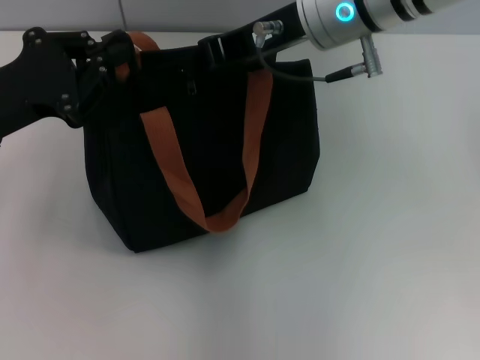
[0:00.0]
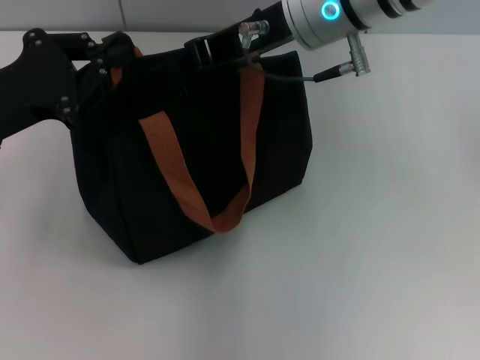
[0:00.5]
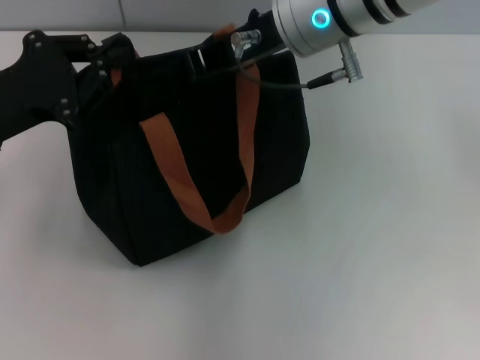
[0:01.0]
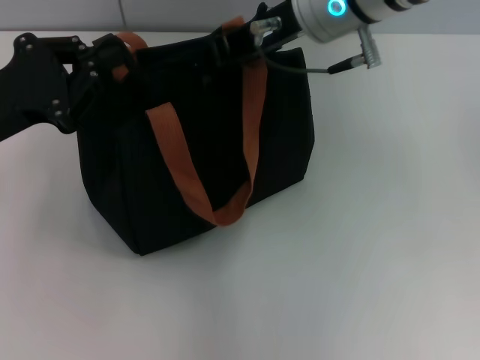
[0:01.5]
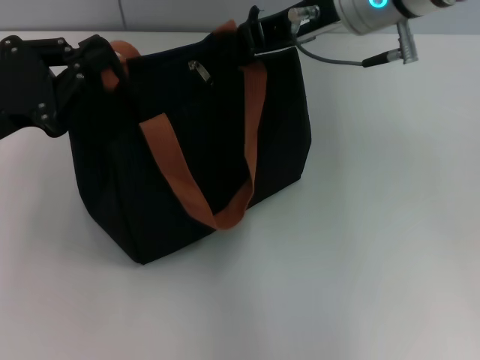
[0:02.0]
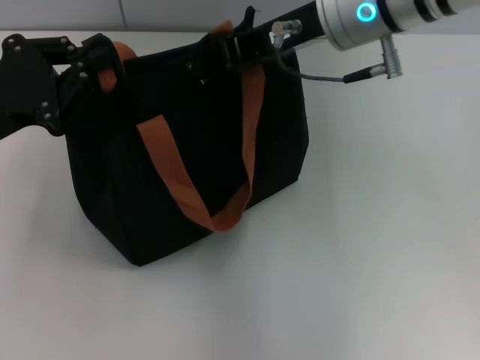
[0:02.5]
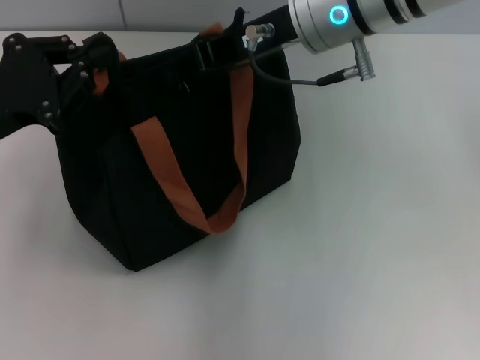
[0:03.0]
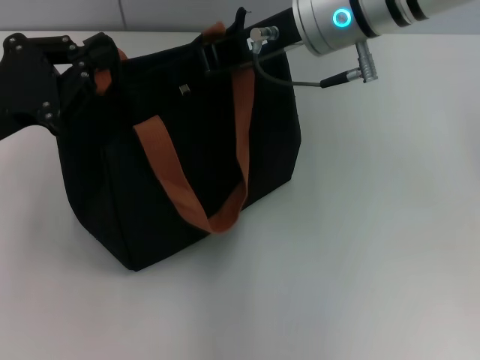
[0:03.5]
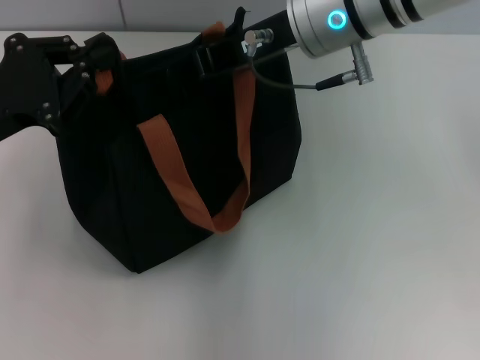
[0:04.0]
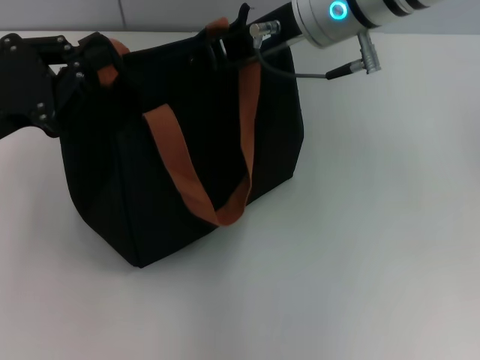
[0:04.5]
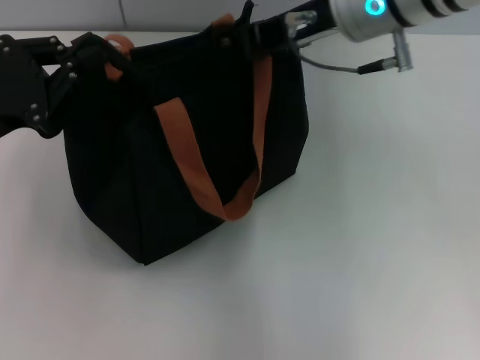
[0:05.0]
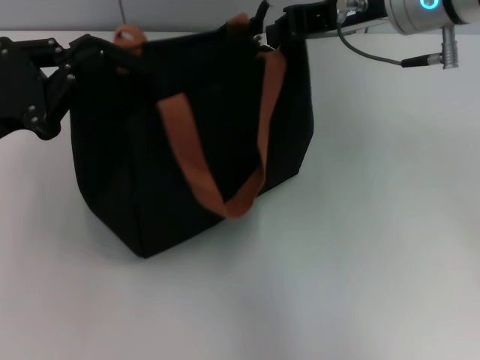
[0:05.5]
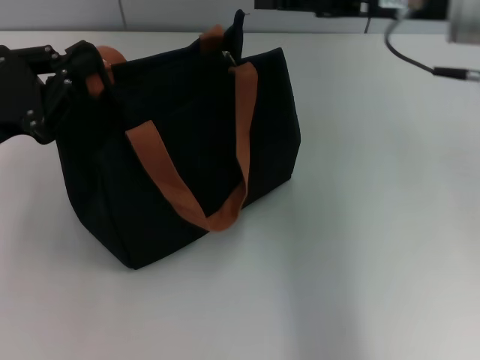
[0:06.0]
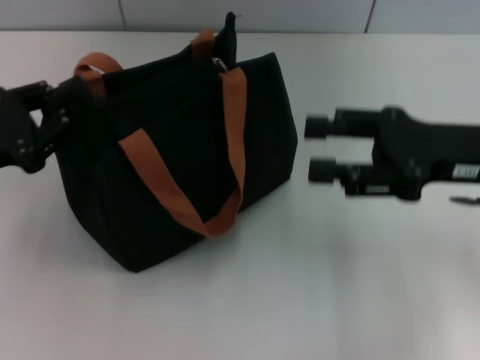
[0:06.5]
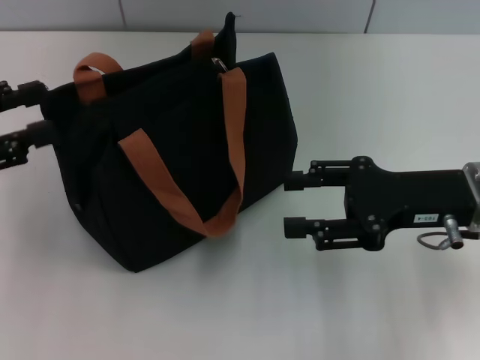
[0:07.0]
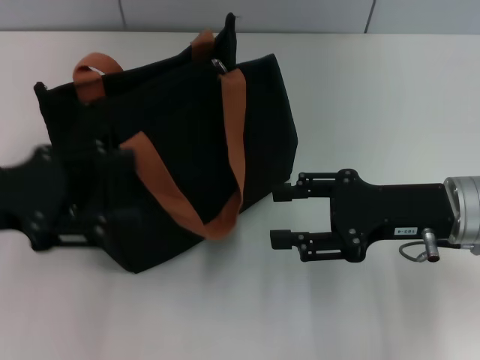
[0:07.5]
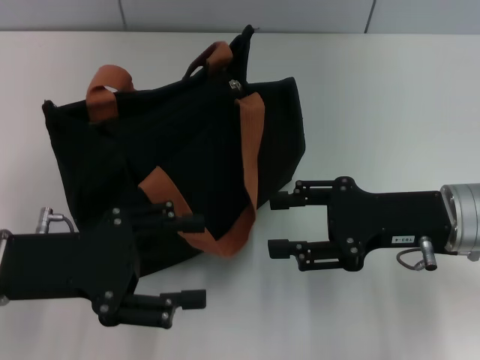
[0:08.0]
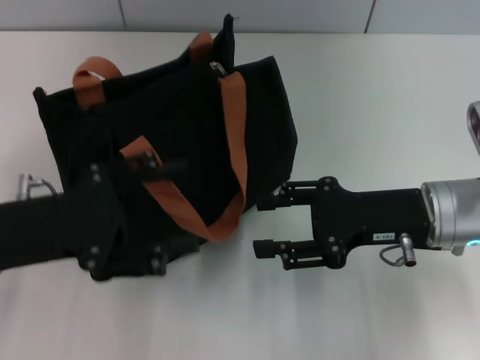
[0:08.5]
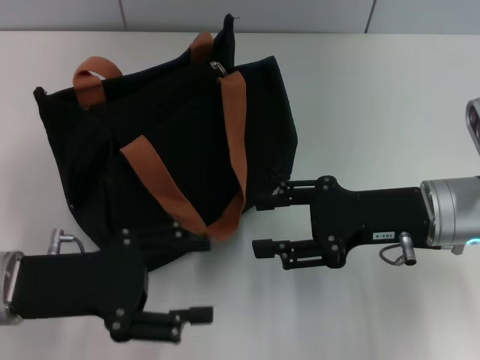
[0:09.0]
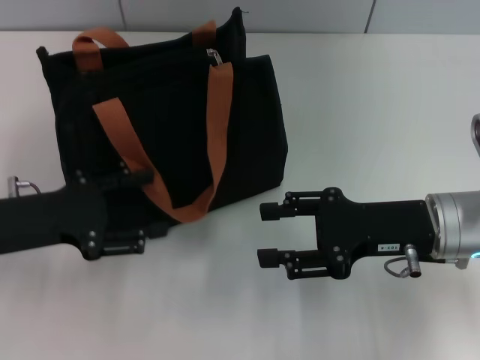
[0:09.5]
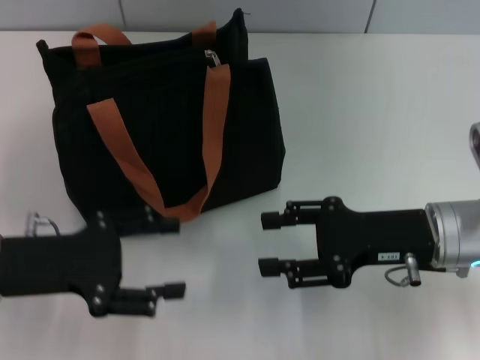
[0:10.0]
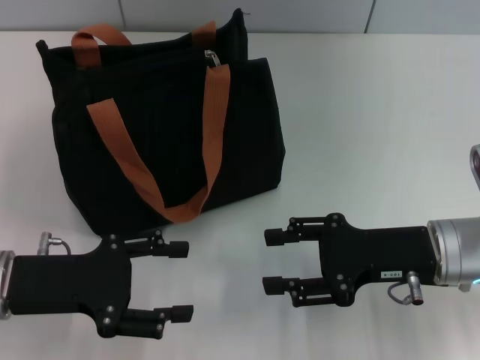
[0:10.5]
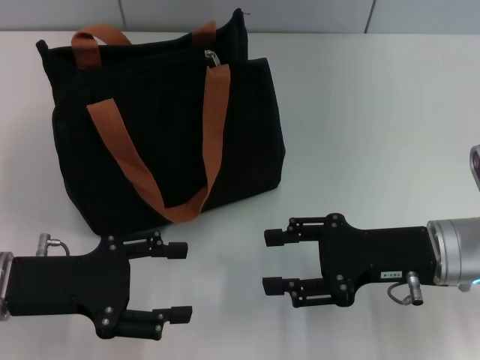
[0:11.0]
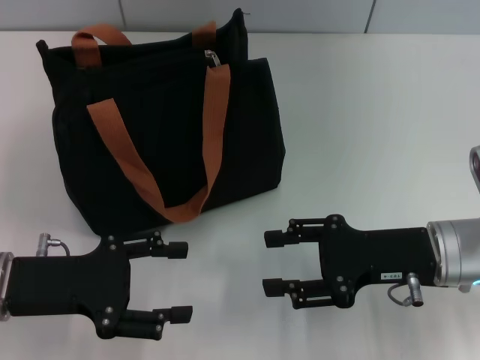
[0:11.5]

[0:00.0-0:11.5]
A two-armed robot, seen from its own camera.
Step, 0:00.0 to 0:05.5: Pull up the zipper with your right hand.
Step, 0:06.0 to 0:07.0: Grab the zipper with your left hand.
0:00.0 to 0:04.0: The grippers stay close to where they were, moving slightly.
0:04.0 to 0:06.0: The right gripper moves to the right, some 10 cm.
0:06.0 to 0:07.5: The left gripper opens; the right gripper travels downward and backward by approximately 15 cm, and opens its fingers.
0:07.5 to 0:09.5: The left gripper moves downward, about 5 cm.

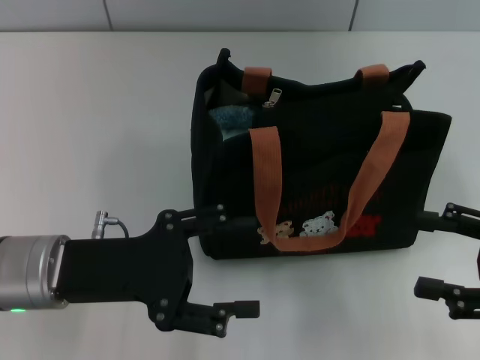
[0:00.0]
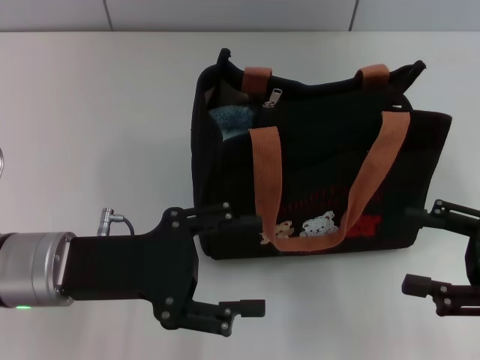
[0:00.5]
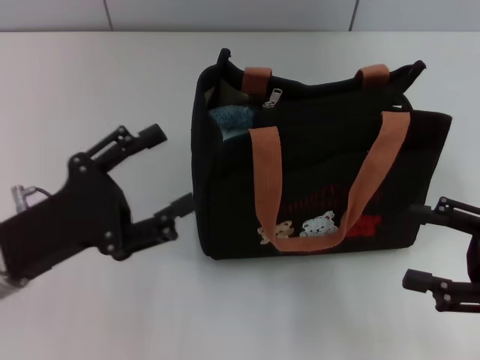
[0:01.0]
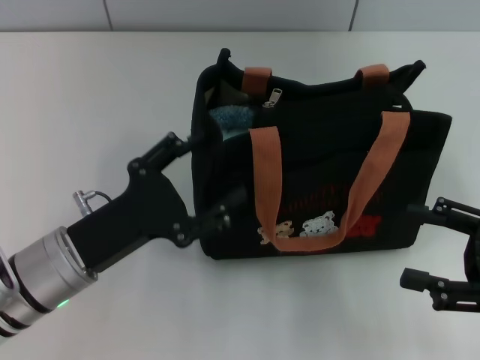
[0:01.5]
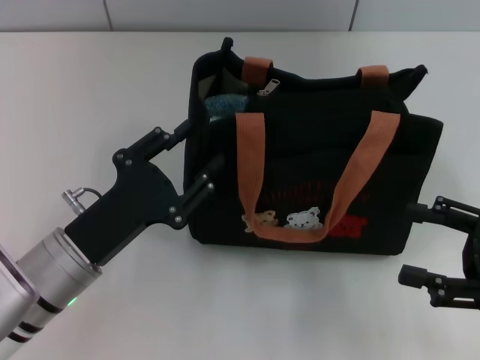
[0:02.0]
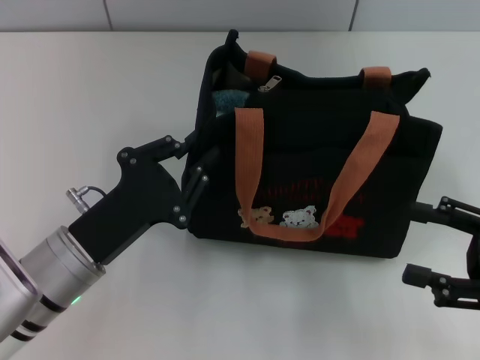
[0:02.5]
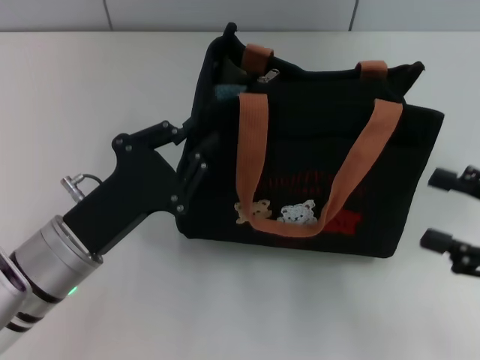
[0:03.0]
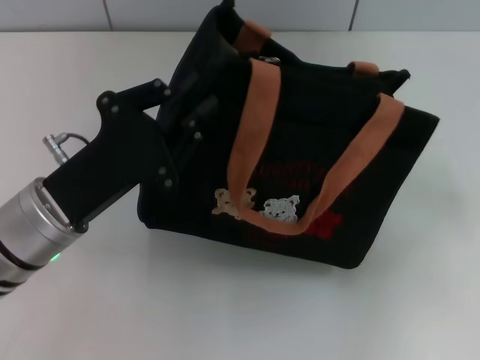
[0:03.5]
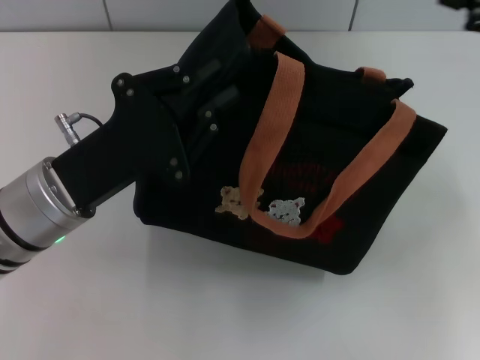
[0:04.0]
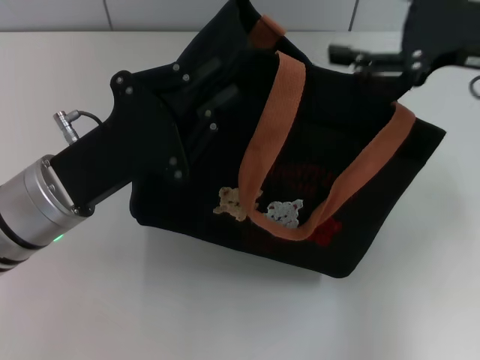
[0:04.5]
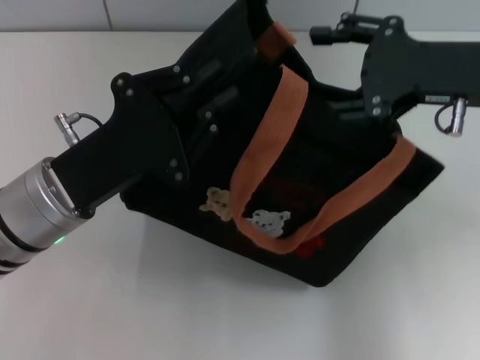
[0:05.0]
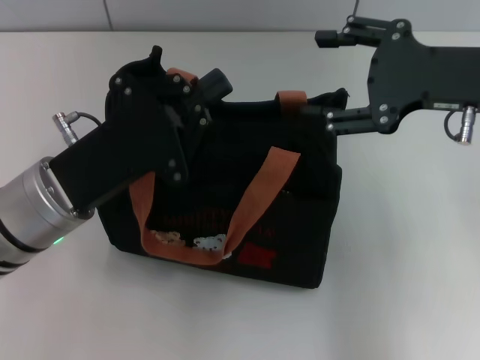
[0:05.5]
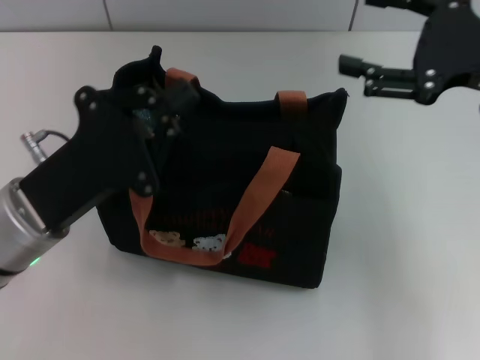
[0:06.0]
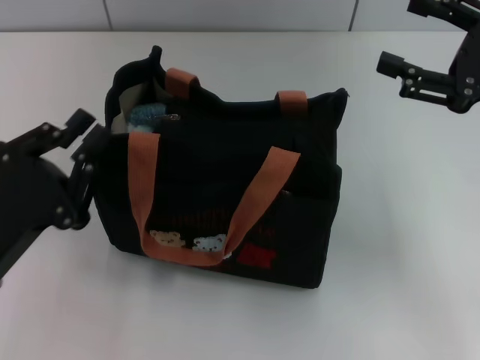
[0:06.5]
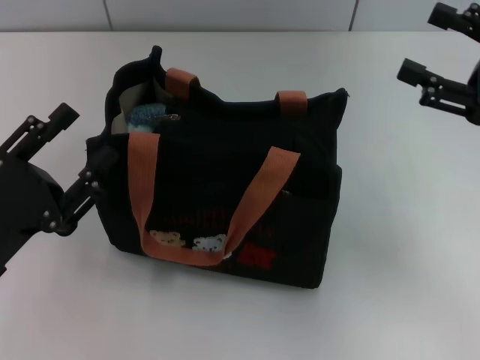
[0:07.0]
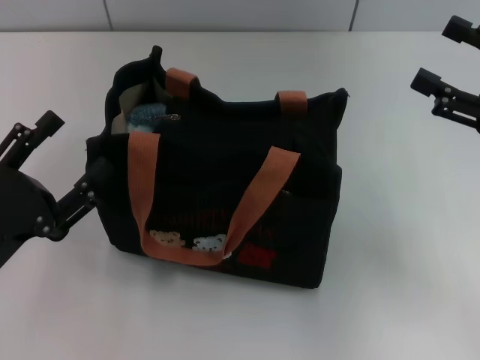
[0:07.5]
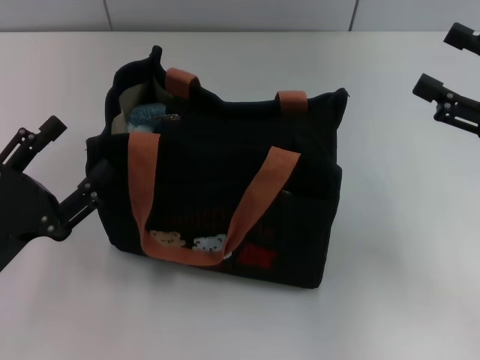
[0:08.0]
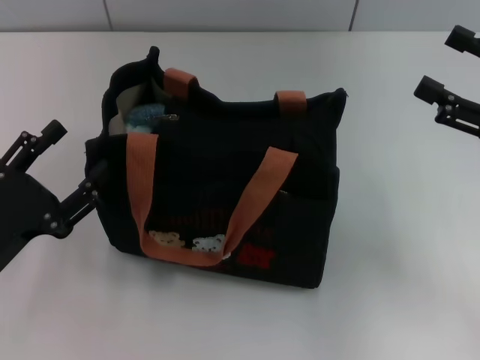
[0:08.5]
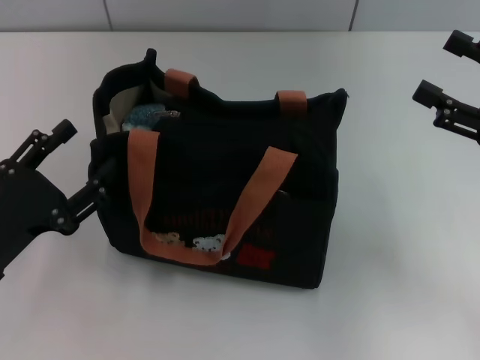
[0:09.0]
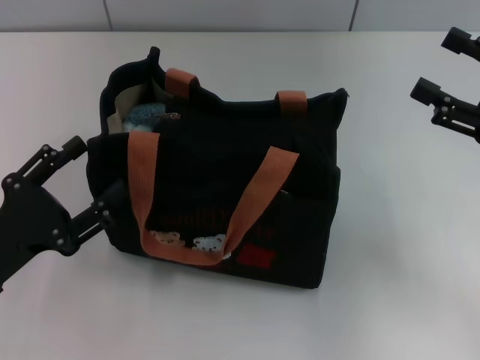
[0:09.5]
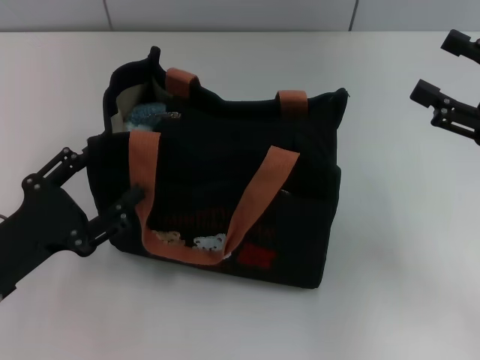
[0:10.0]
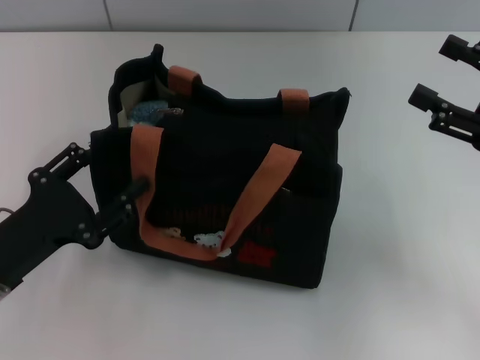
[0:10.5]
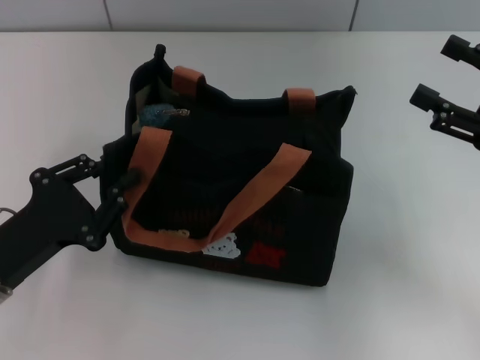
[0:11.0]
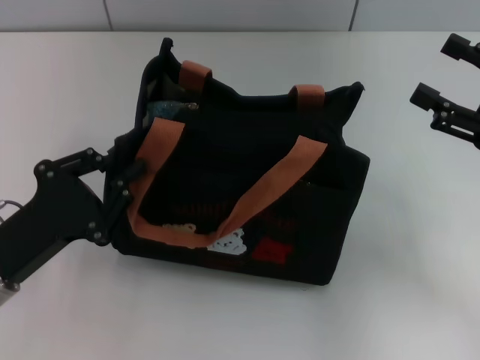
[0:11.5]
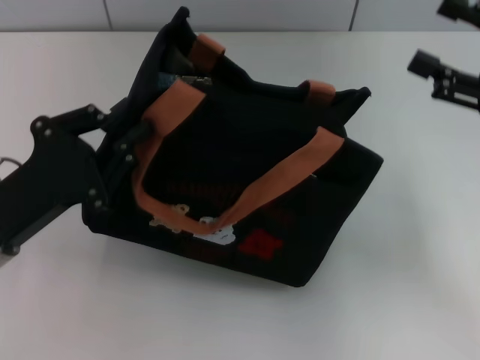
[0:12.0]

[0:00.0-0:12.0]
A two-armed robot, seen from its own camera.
0:00.0 to 0:02.0: The left gripper shifts by some 5 cm.
0:02.0 to 0:04.0: The right gripper shifts some 15 cm upward and forward. The left gripper moves upward, roughly 5 cm, and closes up.
0:04.0 to 0:06.0: The right gripper is displaced to the left by approximately 5 cm.
0:06.0 to 0:08.0: The left gripper heads to the left and backward, covering roughly 10 cm, and opens its fingers, while the right gripper travels downward and to the right by roughly 10 cm.
0:08.0 to 0:10.0: The grippers move only a little.
0:10.0 to 0:12.0: The left gripper moves approximately 5 cm, and closes.

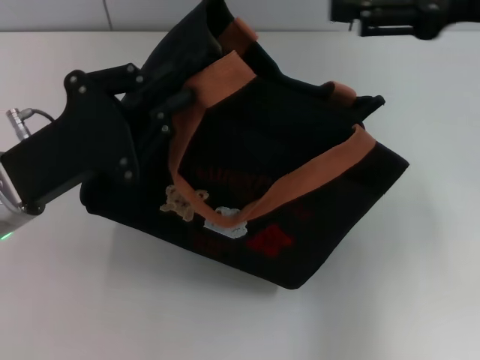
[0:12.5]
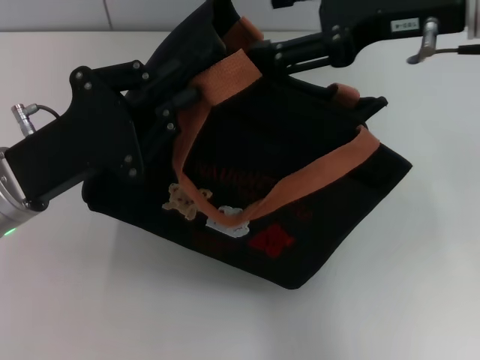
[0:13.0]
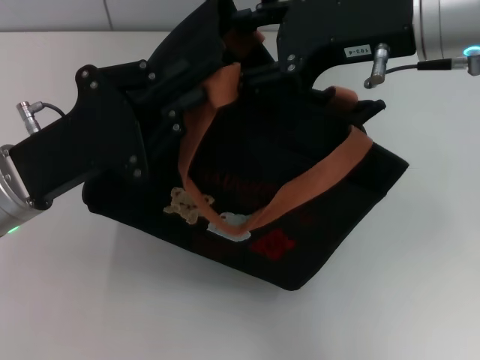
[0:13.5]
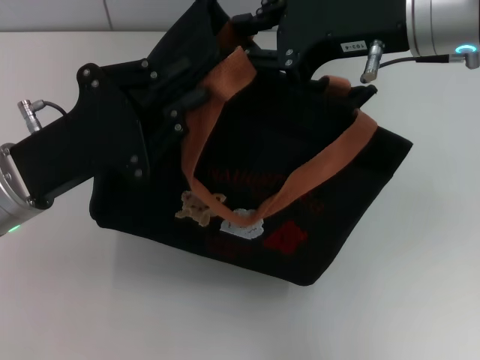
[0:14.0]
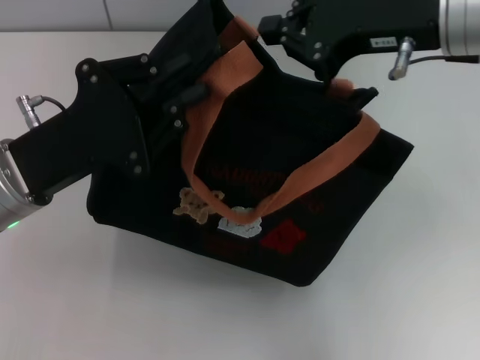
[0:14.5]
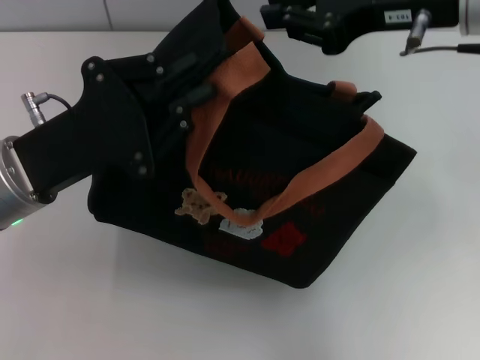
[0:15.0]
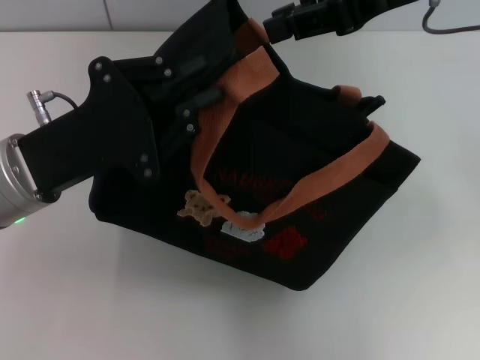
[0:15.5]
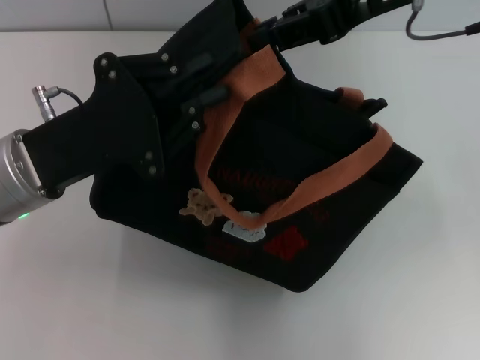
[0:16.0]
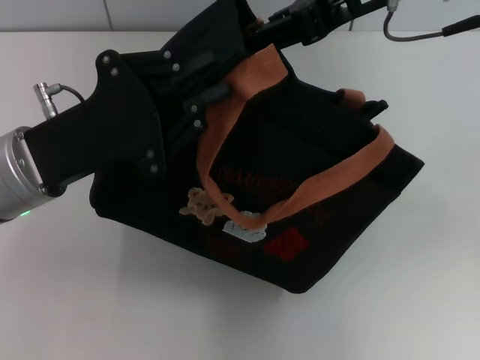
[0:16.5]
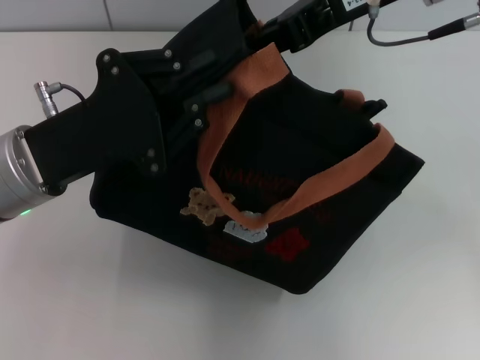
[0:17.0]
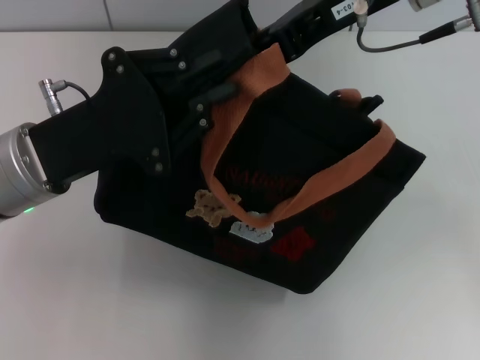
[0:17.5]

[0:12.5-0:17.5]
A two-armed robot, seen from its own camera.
0:12.5 to 0:15.0: The right gripper travels to the left by some 5 cm, and closes.
0:15.0 to 0:17.5: The right gripper ends up roughly 5 cm from where it was, and opens.
